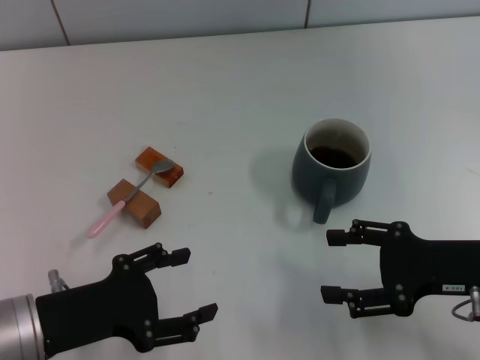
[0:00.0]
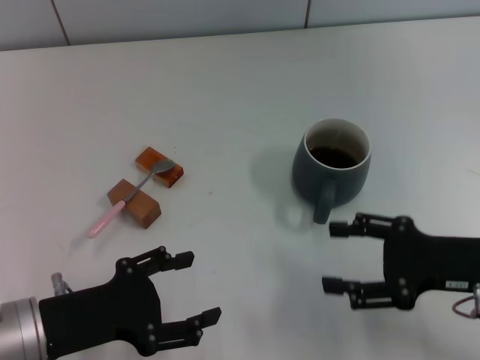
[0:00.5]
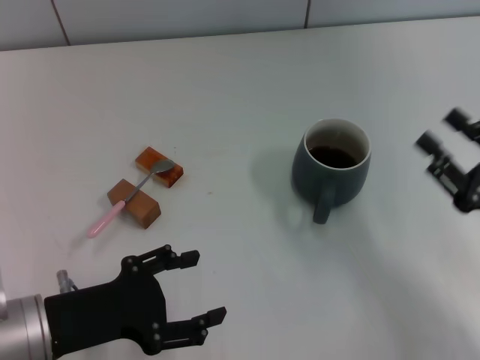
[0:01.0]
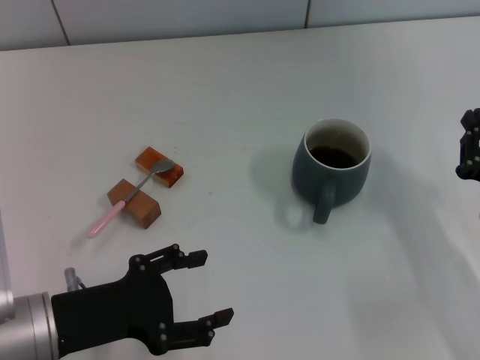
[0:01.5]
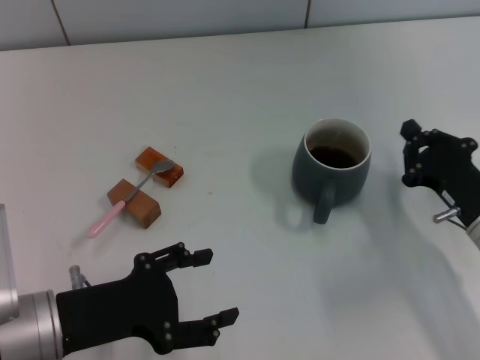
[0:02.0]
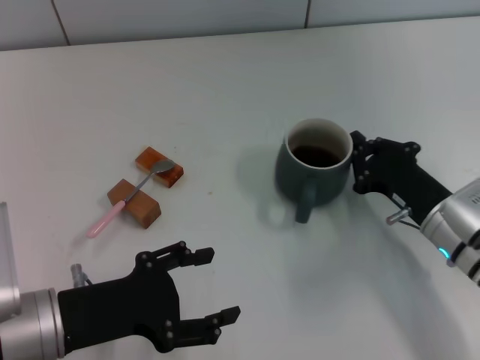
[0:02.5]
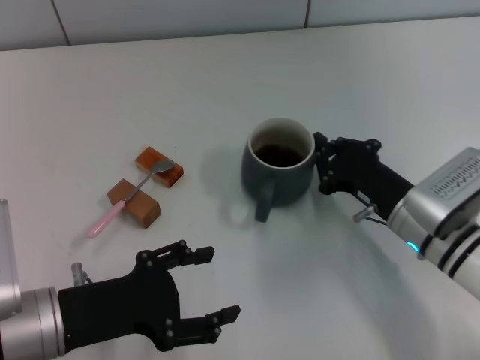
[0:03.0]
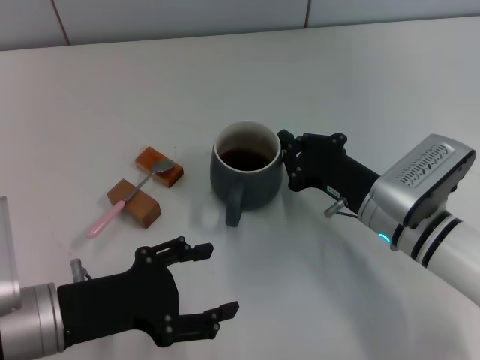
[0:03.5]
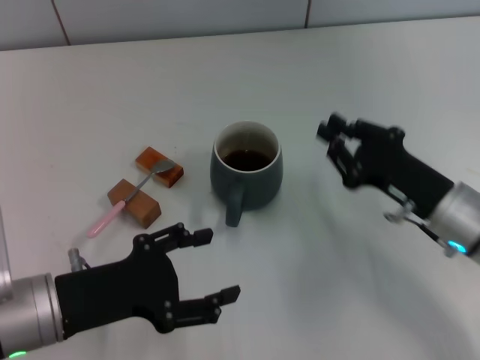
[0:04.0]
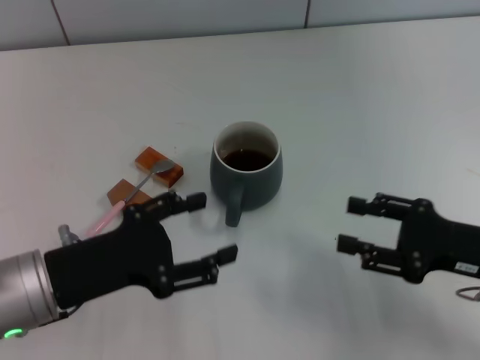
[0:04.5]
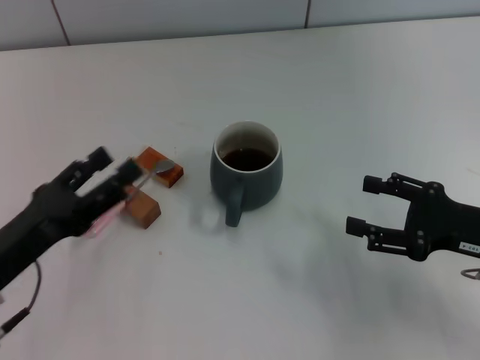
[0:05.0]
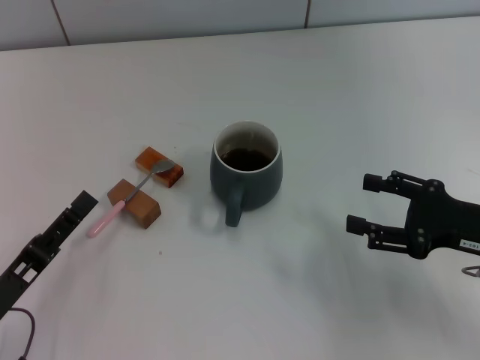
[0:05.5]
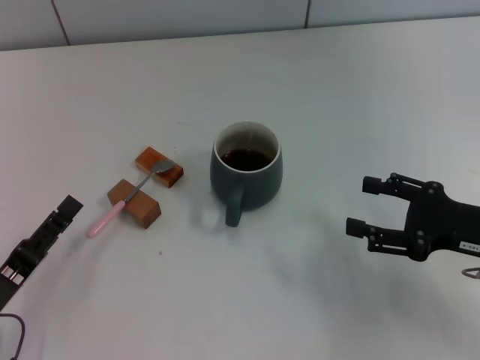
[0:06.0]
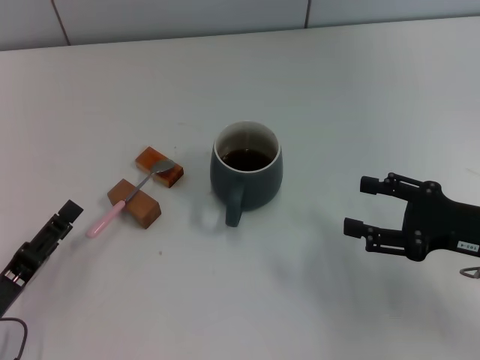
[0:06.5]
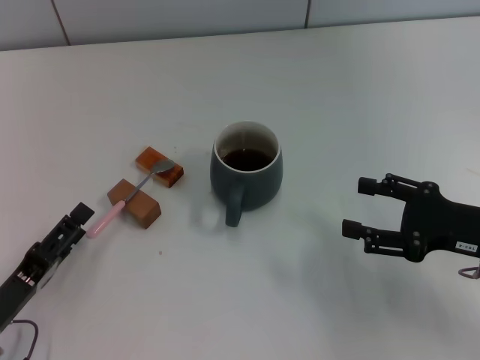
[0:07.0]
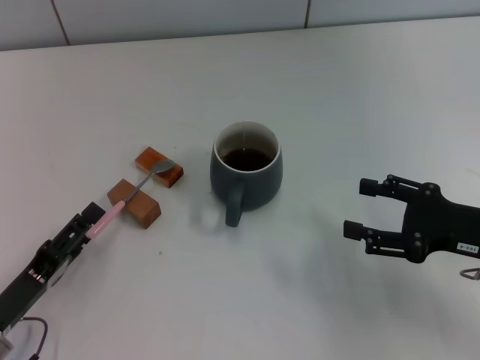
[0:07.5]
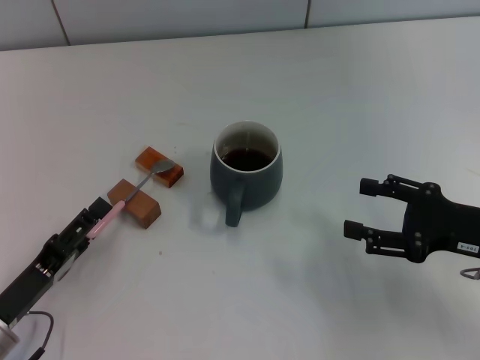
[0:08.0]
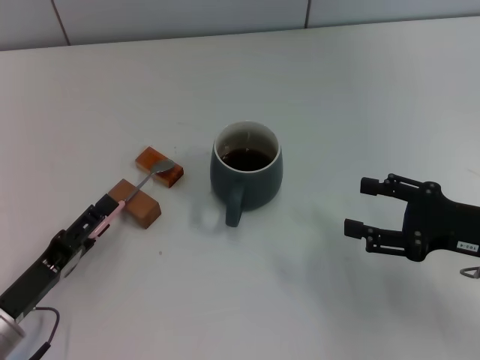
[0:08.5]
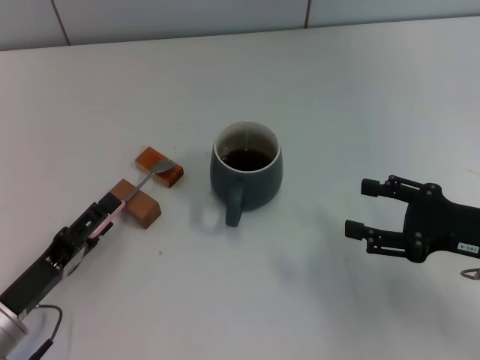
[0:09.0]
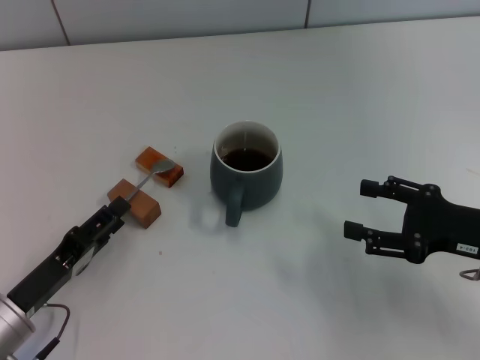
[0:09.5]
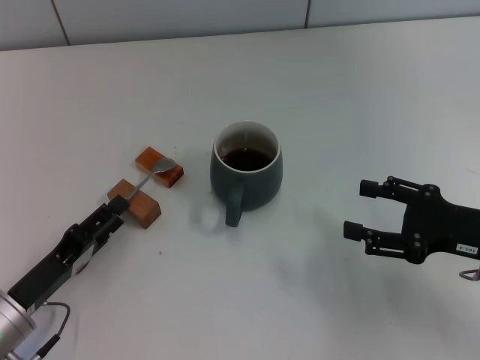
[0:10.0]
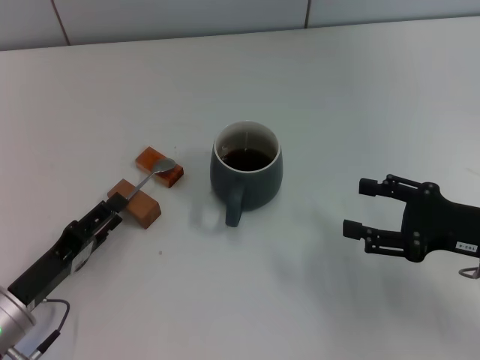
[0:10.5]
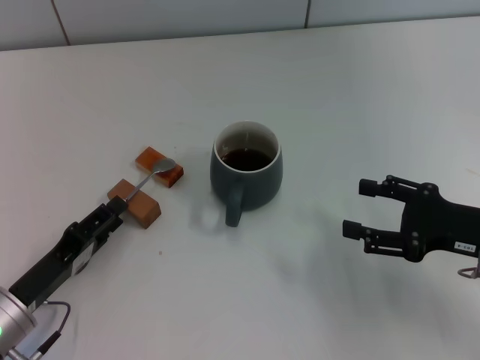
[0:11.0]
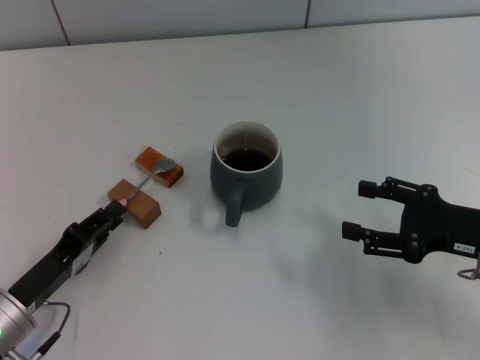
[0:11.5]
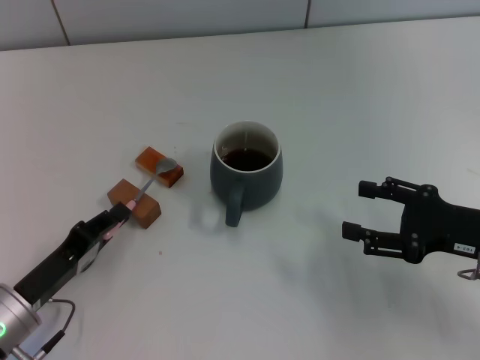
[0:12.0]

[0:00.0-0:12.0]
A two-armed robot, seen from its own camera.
Task of the whole recording: Move the grey cup to the center, lift the pink spoon, stir it three times in the cup, and put the spoon into the cup.
Step, 0:00.0 to 0:04.0: Move the cup with coffee to the center of view with the right gripper.
0:00.0 to 0:02.0: The right gripper travels downward by roughly 5 cm, and closes up.
0:02.0 to 0:04.0: The right gripper goes to the left and returns, some 10 cm each way.
0:04.0 to 0:06.0: The right gripper moves to the right, approximately 5 cm, and opens up; the left gripper travels to the left and downward by approximately 10 cm.
0:06.0 to 0:10.0: The grippers make only small movements.
0:10.0 to 0:12.0: The left gripper closes up.

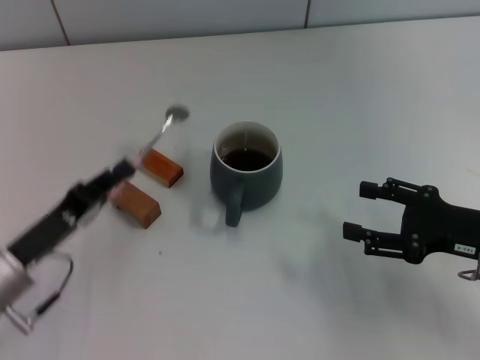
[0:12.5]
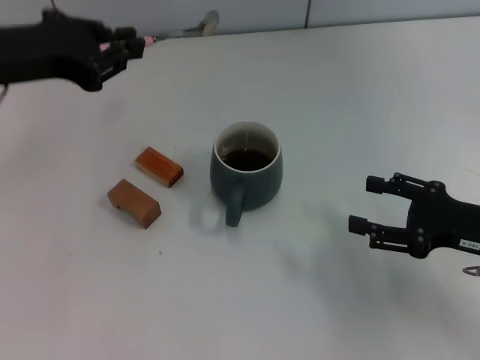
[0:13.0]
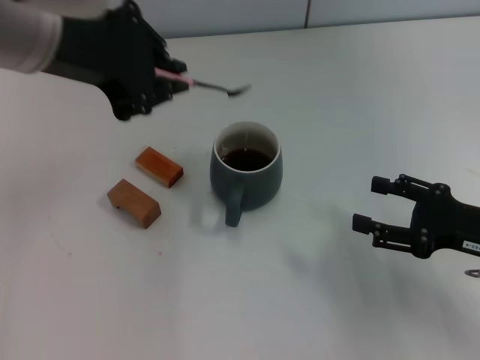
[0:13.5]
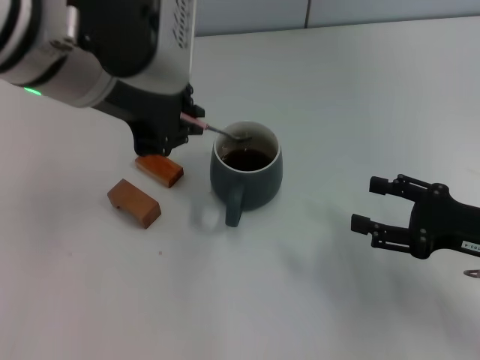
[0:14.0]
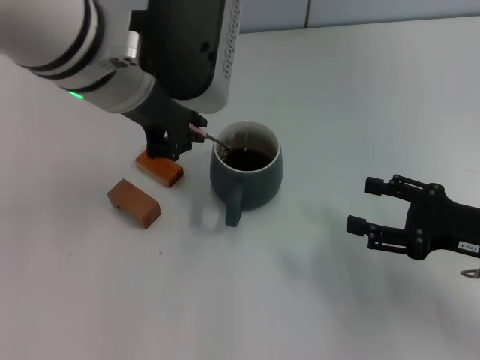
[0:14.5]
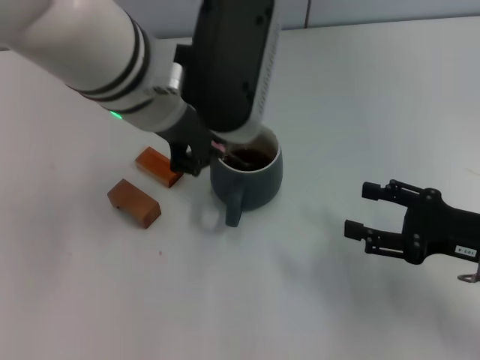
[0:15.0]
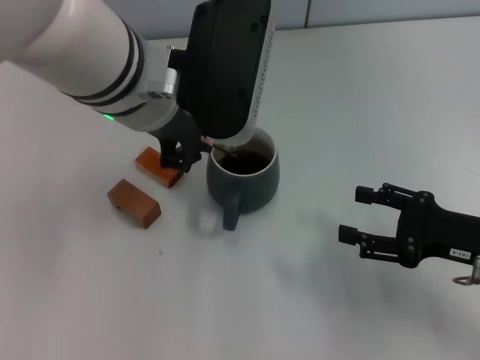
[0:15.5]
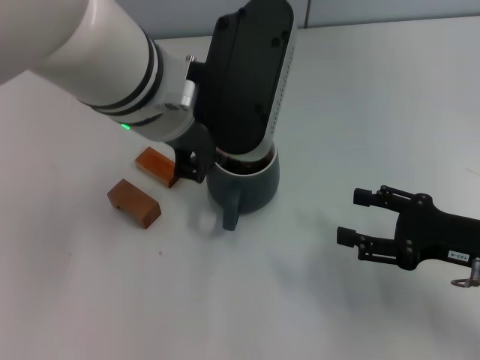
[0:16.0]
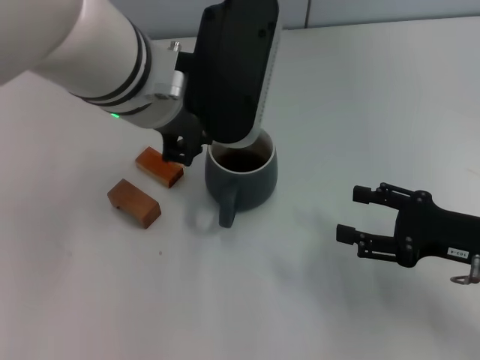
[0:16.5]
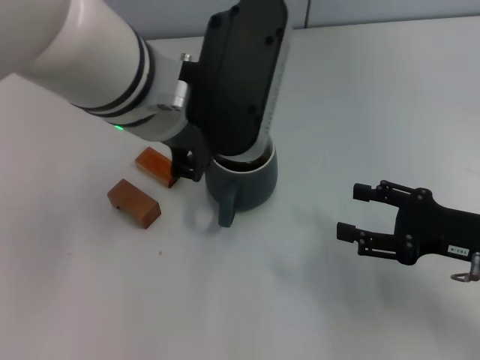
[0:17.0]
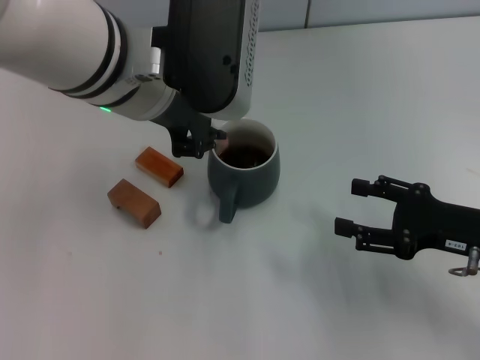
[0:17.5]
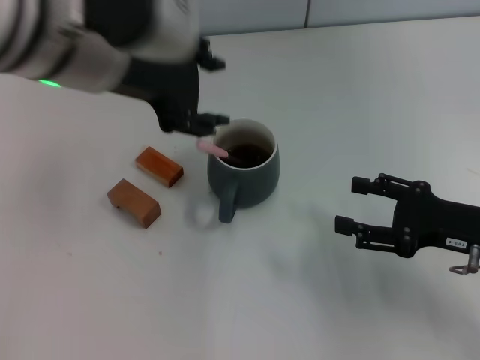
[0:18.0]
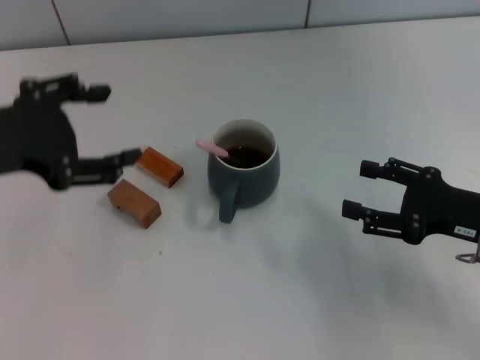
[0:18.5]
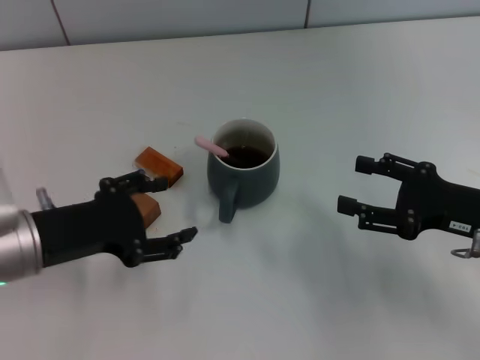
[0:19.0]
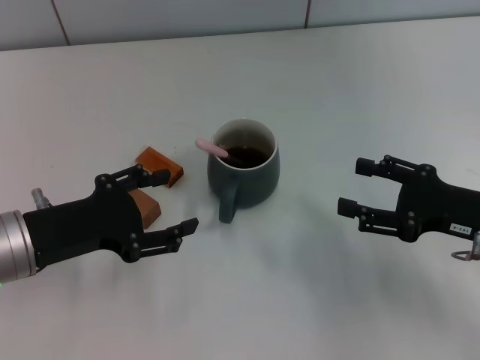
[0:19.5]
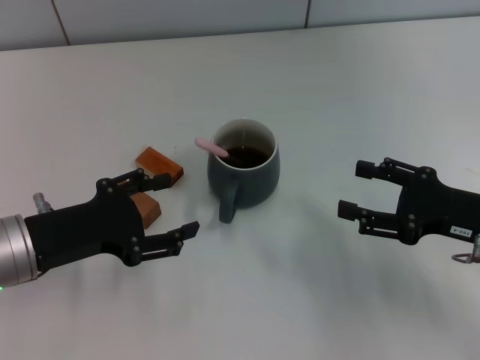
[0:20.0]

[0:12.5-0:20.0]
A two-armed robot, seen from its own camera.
Task of the whole recording: Move the grey cup to the center, lift the pink spoon, stir it three times in the cup, and put the spoon into the cup.
Step, 0:13.0 to 0:18.0: Stir the coffee in the cup with the left gripper.
0:12.5 to 0:14.5: The left gripper is displaced upward, to the right and forward by some 30 cm.
0:14.5 to 0:16.5: There are only small adjustments of the grippers.
0:16.5 to 0:18.0: The left gripper goes about 5 cm to the left.
0:18.0 to 0:20.0: The left gripper travels downward and to the left by approximately 20 cm, and opens.

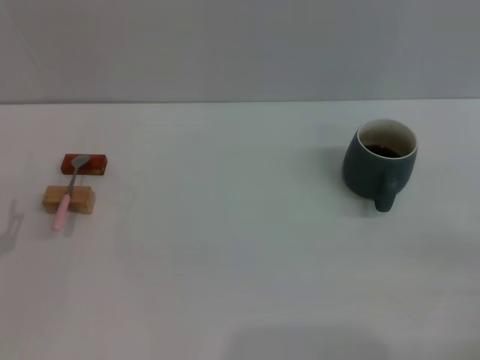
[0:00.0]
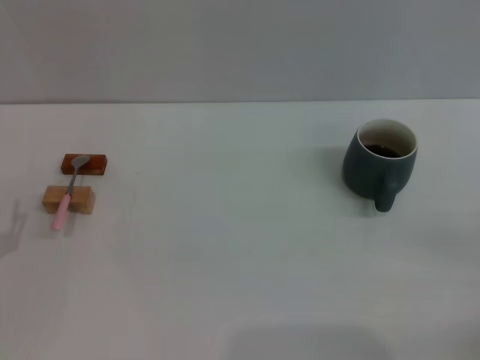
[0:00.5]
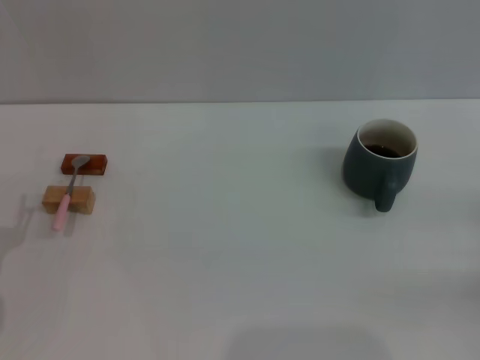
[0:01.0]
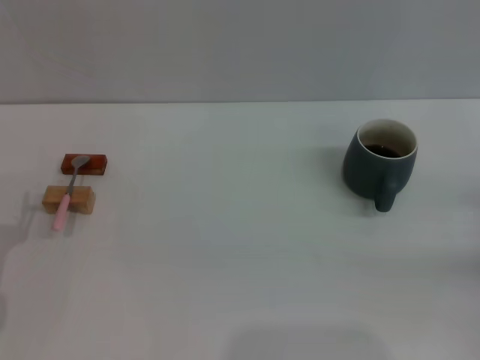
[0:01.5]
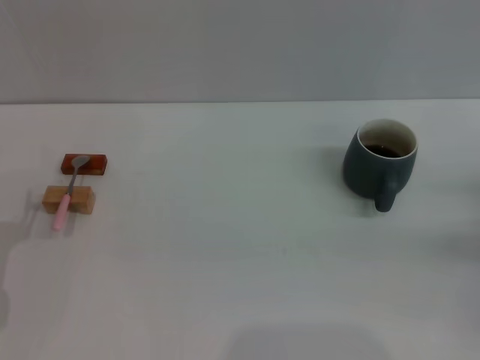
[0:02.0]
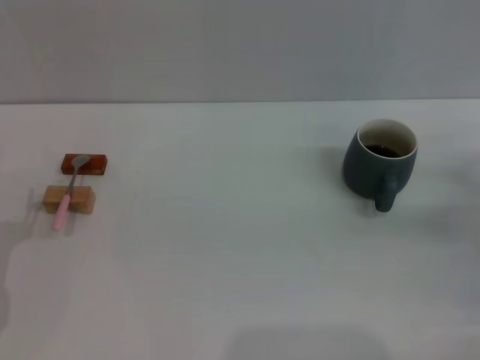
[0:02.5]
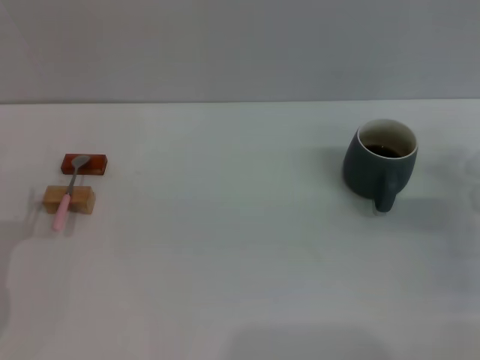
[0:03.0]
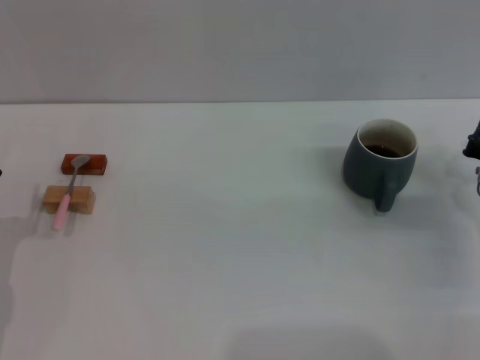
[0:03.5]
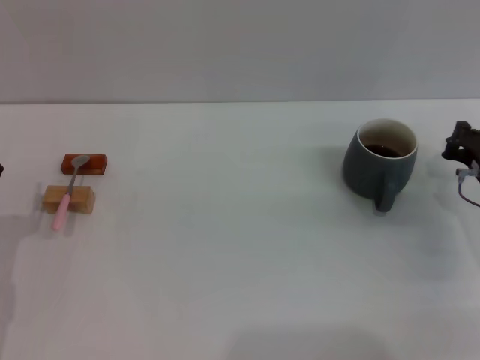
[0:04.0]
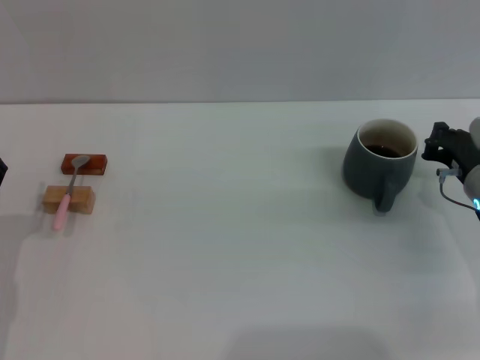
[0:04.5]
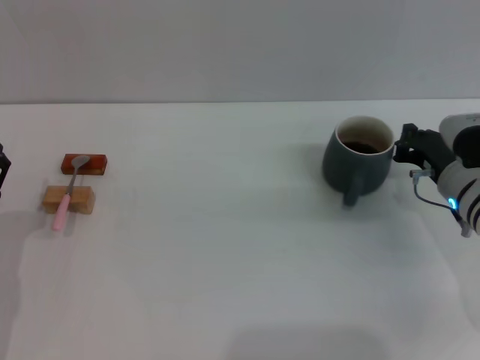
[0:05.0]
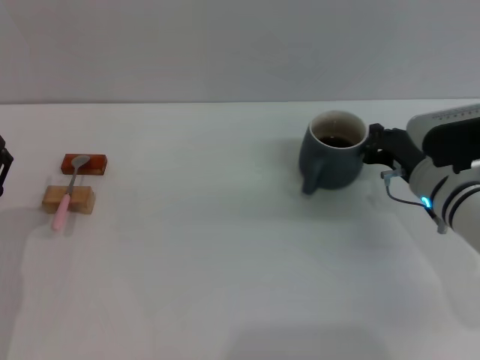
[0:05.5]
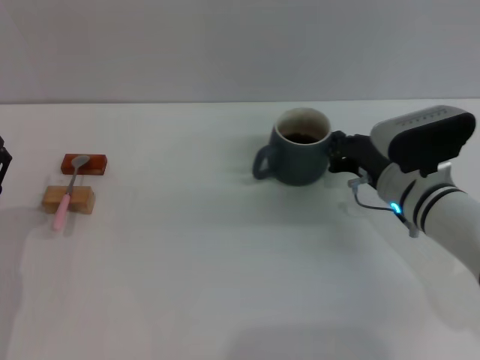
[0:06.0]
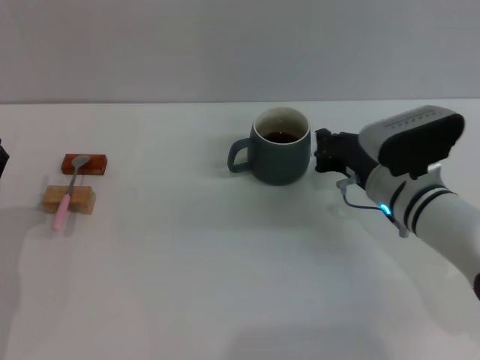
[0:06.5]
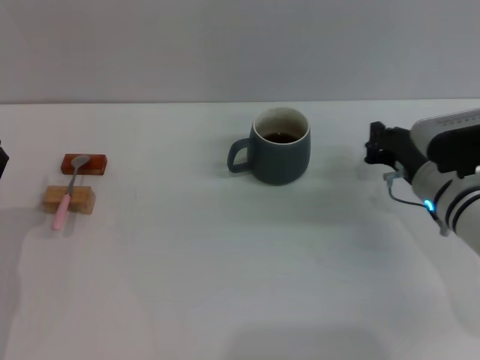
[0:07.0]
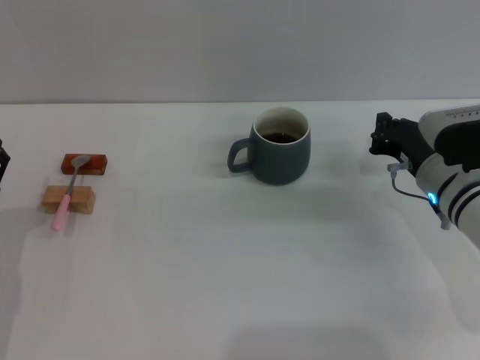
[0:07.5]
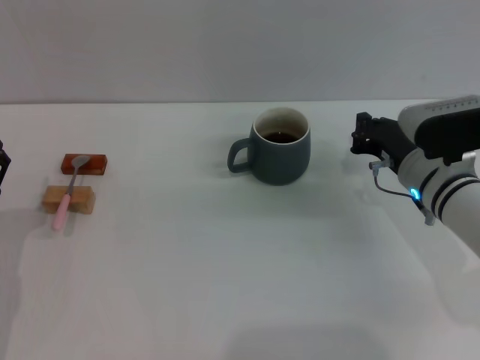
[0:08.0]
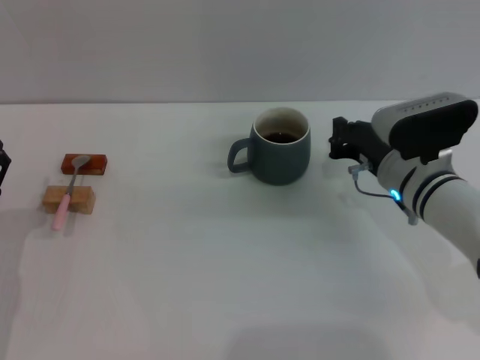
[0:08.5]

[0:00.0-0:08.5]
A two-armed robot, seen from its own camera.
Task of the whole recording: Move the grey cup to the center, lift the pink spoon, stir it three times in the cup, and put the spoon into the cup.
Step, 0:00.0 to 0:06.5: Move the cup with coffee to the center of view with the right gripper.
0:02.0 to 0:04.0: The right gripper moves to the left, roughly 10 cm.
0:04.0 to 0:06.5: The right gripper heads to the left, covering approximately 10 cm.
0:06.5 to 0:08.5: The grippers move only a little.
